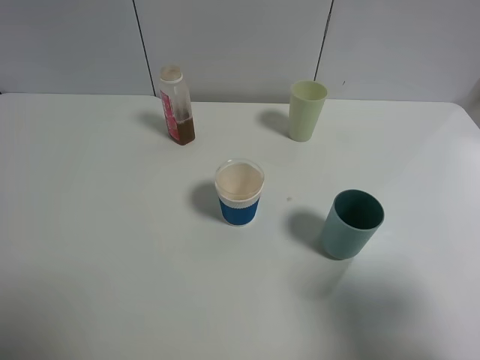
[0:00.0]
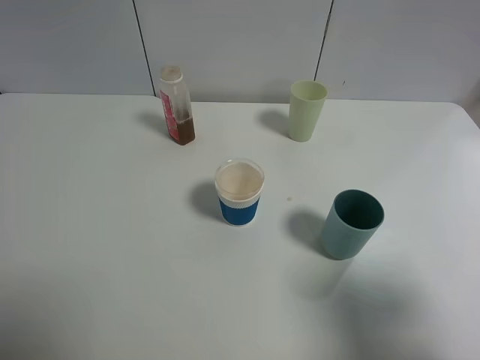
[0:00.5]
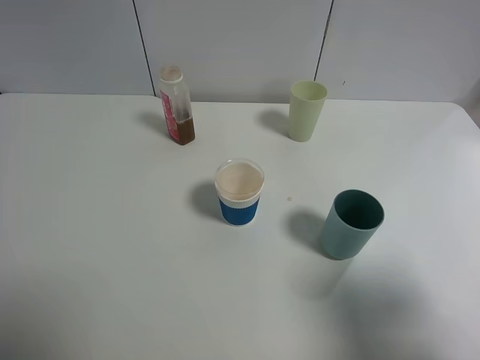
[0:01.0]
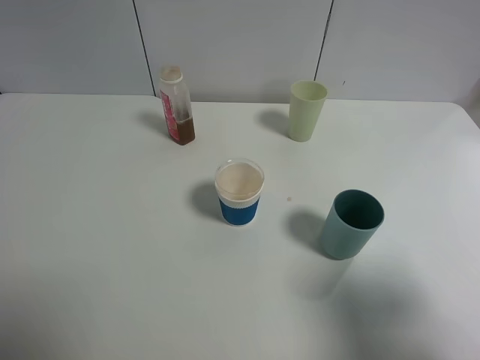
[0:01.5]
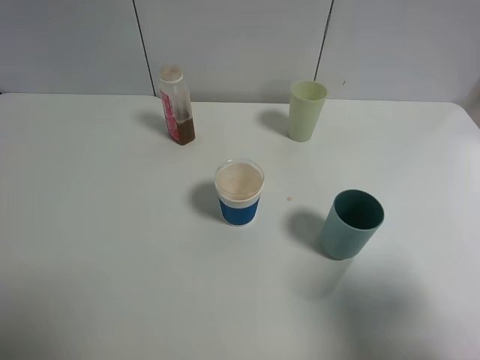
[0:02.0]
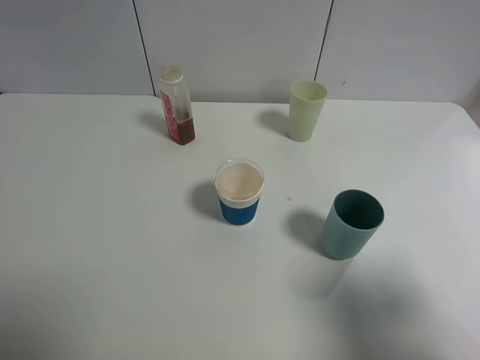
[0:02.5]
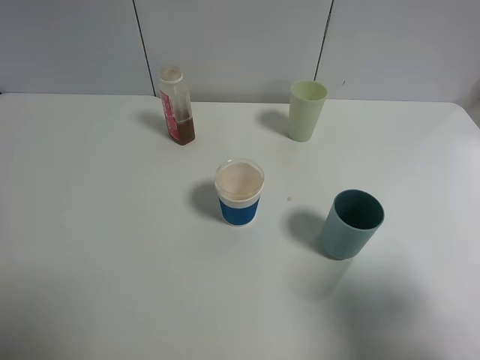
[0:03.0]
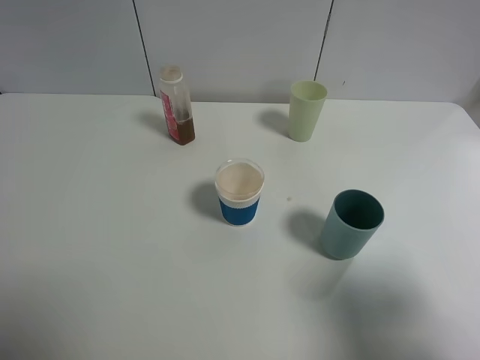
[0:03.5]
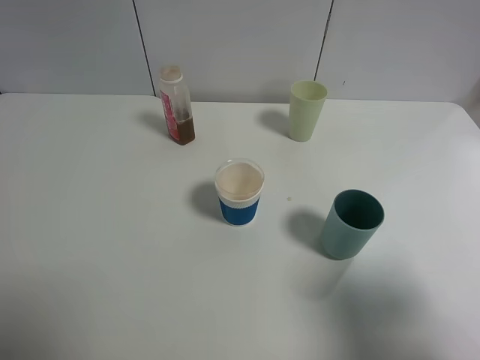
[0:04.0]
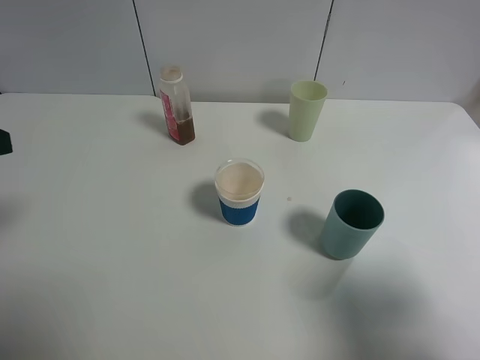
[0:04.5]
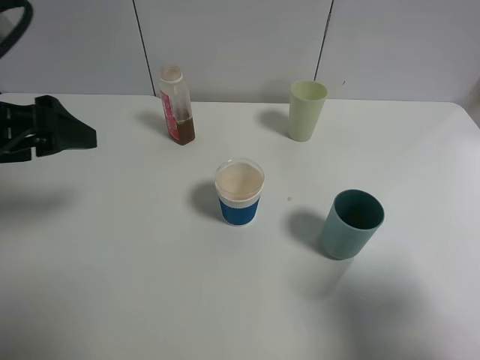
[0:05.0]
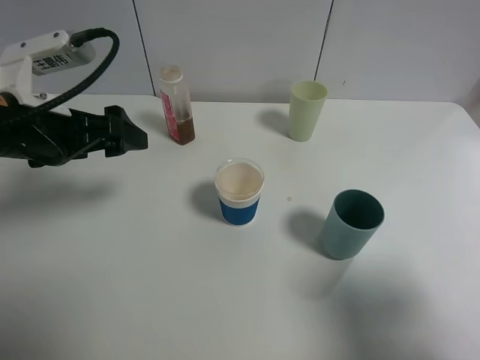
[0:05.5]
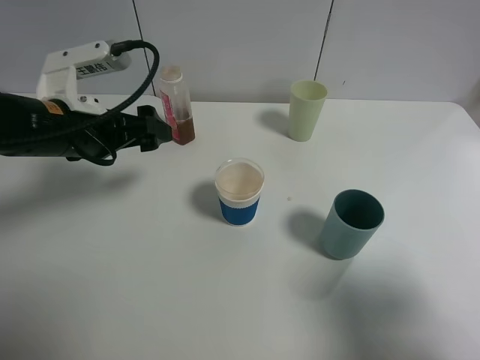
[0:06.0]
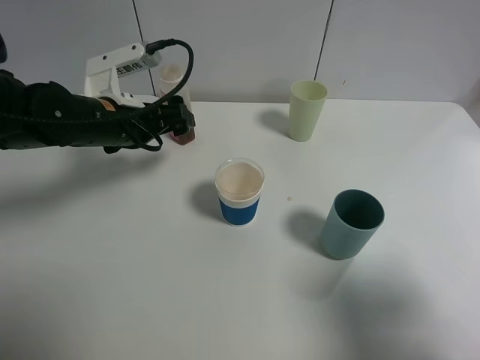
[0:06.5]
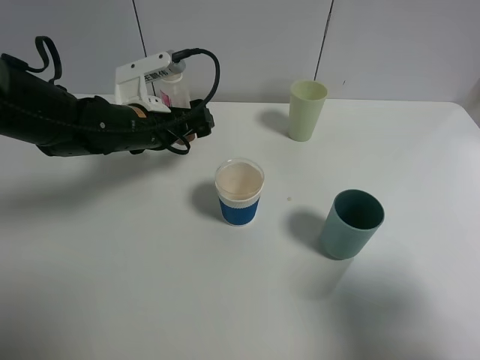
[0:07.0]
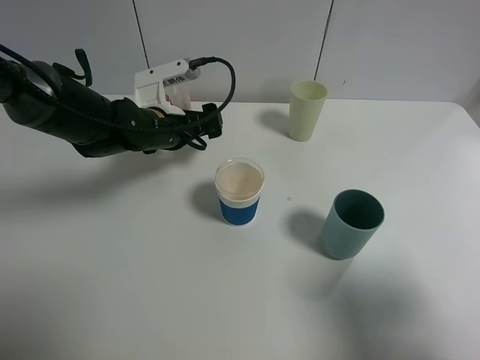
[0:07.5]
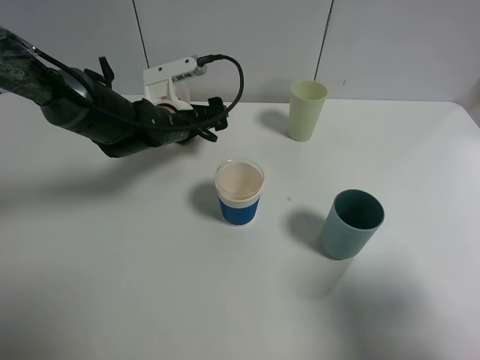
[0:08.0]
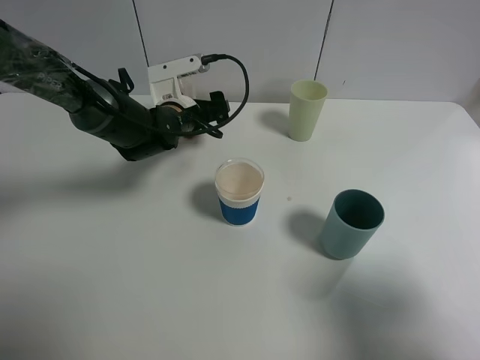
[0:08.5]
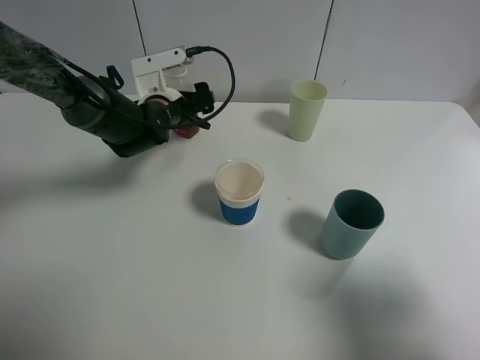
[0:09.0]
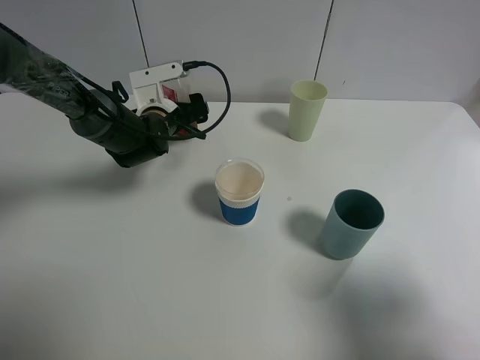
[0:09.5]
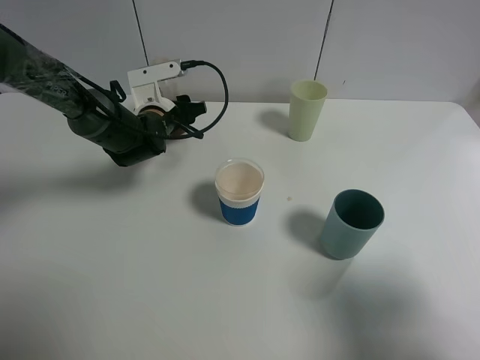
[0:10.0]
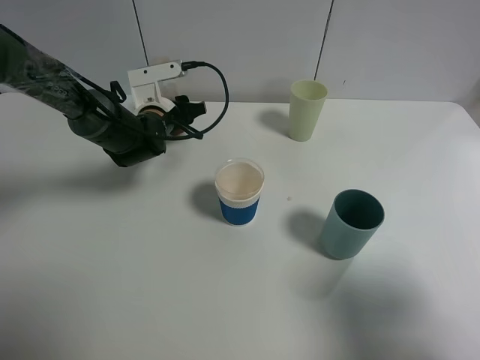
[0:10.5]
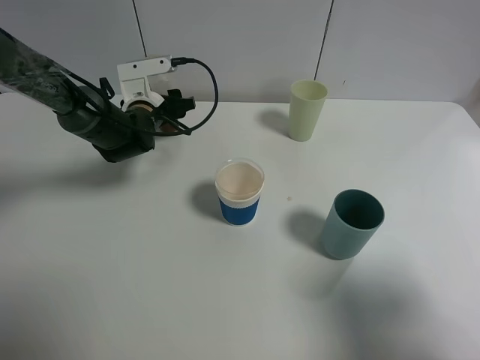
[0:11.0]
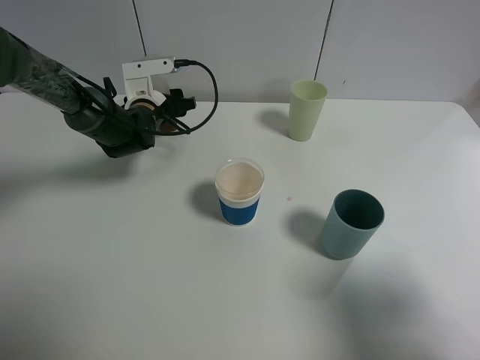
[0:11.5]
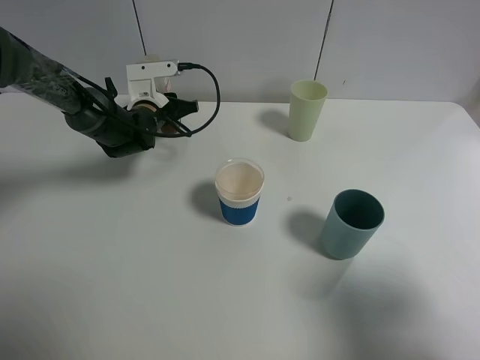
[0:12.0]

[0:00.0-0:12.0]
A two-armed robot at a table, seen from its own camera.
Task of the whole recording: use a gripper to hold the bottle of the drink and pour it into a random cup.
Step, 0:00.0 to 0:11.5: Grasp the cranberry juice bottle with the left gripper.
0:00.0 to 0:02.0: Neither gripper changes place.
0:04.0 to 0:06.0: The left gripper shifts roughly 25 cm forward, to the right and downward.
0:06.0 to 0:08.0: The left gripper shifts approximately 15 cm forward, downward and to the right.
0:08.0 to 0:10.0: The left gripper ends up some 5 cm from where it was, and closes up.
0:10.0 to 0:12.0: The left gripper closes.

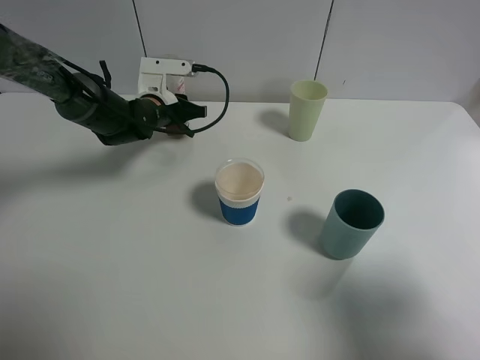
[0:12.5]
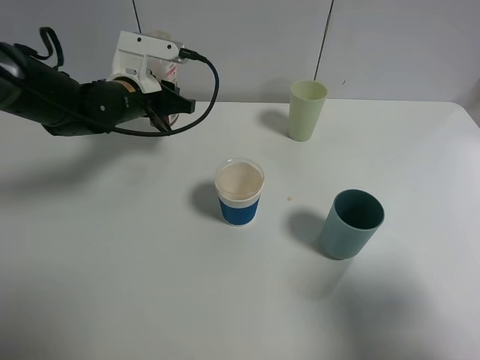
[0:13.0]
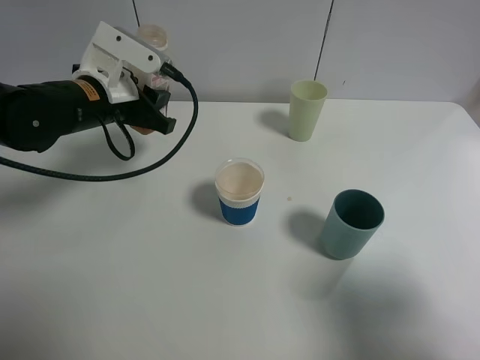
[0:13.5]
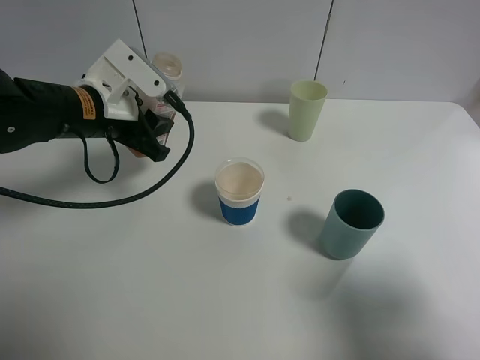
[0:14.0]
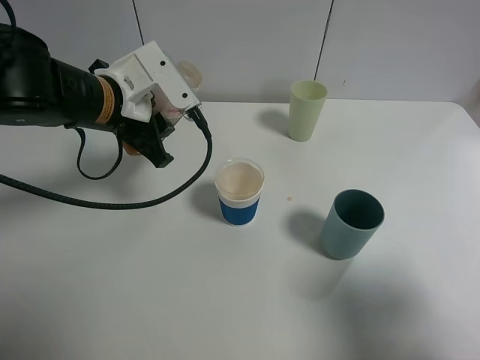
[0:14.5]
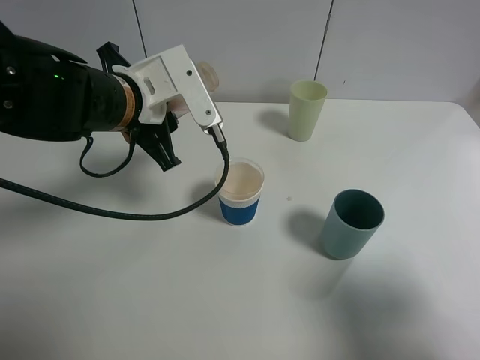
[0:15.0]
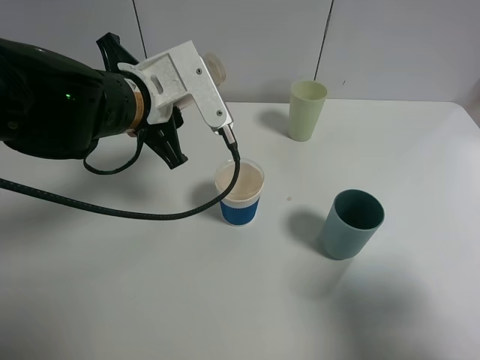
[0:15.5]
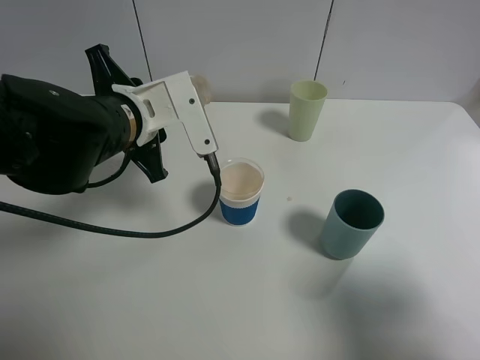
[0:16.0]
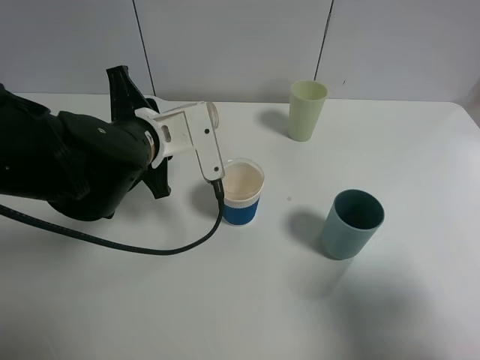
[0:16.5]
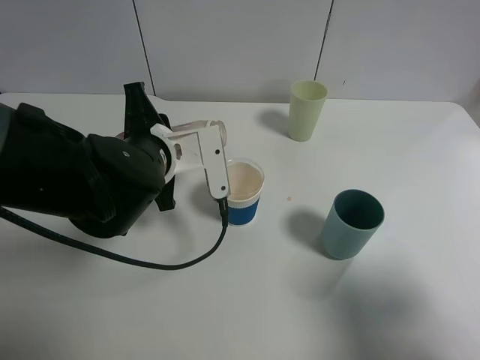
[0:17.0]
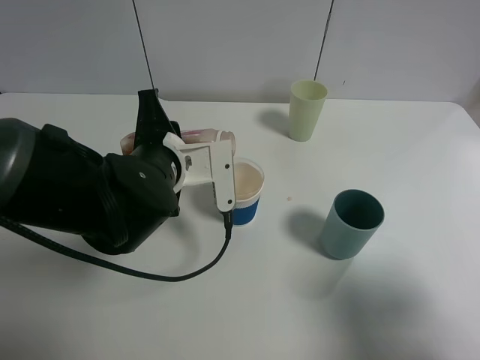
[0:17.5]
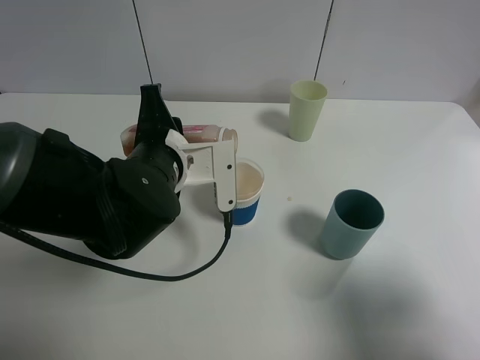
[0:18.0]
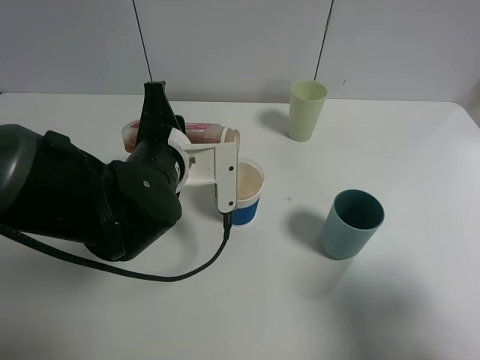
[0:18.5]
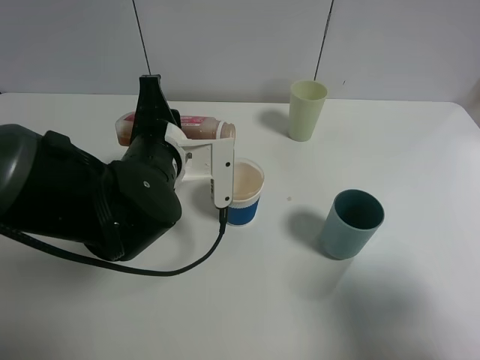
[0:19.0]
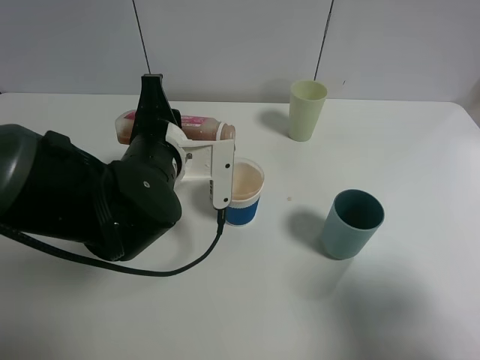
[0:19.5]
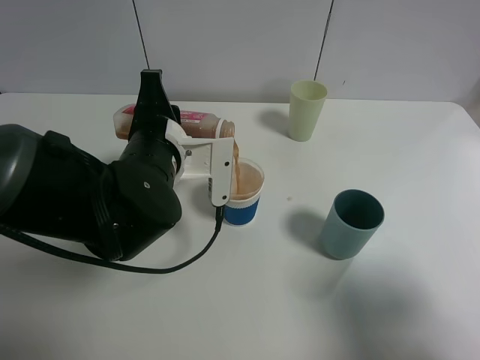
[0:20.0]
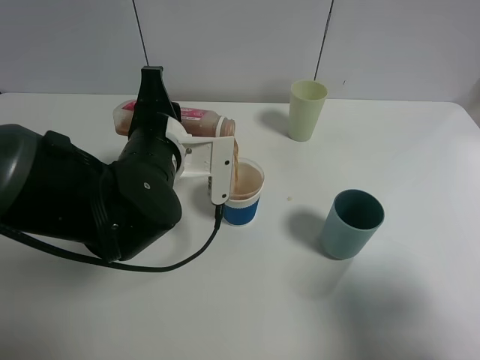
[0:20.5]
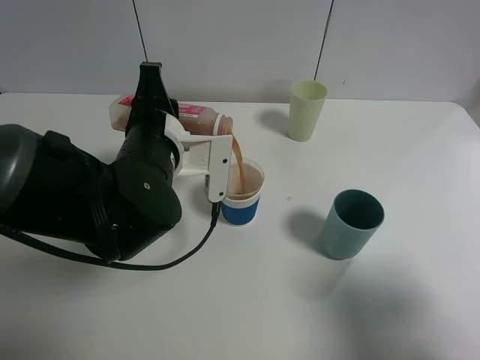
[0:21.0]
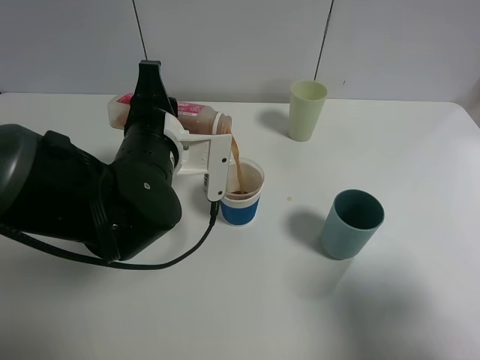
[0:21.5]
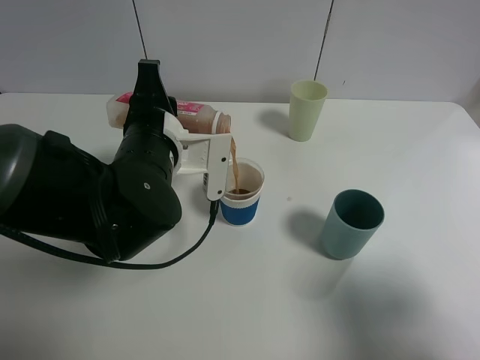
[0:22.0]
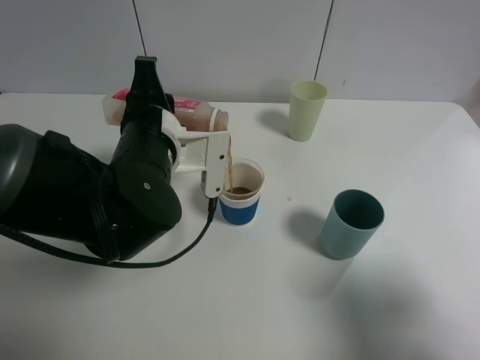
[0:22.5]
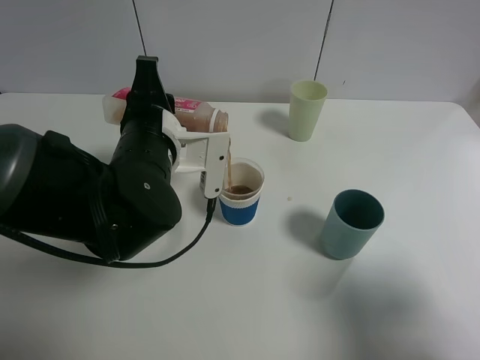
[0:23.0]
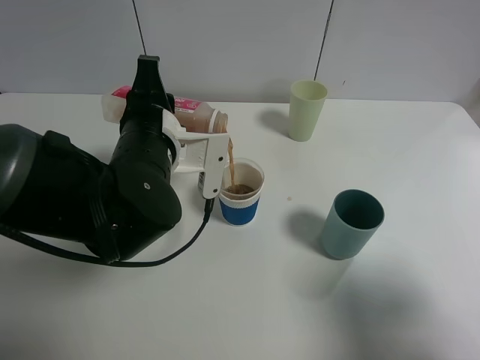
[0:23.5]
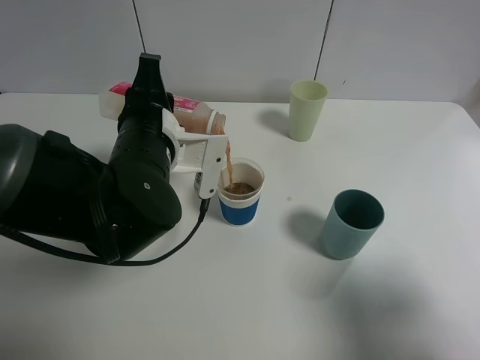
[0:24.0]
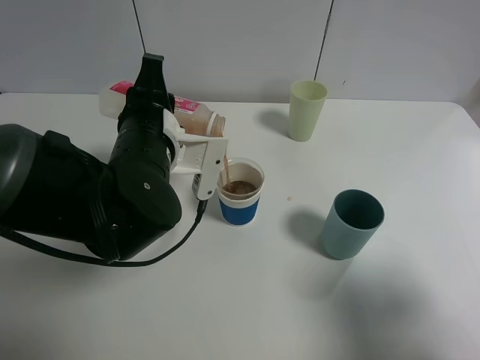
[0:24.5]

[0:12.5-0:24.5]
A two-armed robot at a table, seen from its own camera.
Task of the whole recording: use a gripper to hold the bottle of the drink and pour it into a random cup.
0:12.5 to 0:14.5: The left gripper goes some 20 cm backward and upward.
0:14.5 to 0:16.5: The left gripper changes place by roughly 5 cm.
0:16.5 to 0:18.5: The grippers make only small movements.
0:18.5 to 0:20.5: The grippers make only small movements.
0:20.5 to 0:22.5: The two grippers keep their place.
0:22.5 to 0:24.5: The grippers make only small movements.

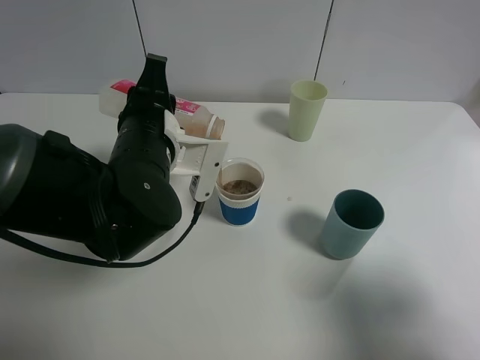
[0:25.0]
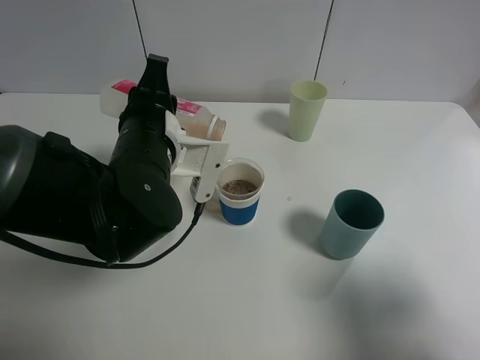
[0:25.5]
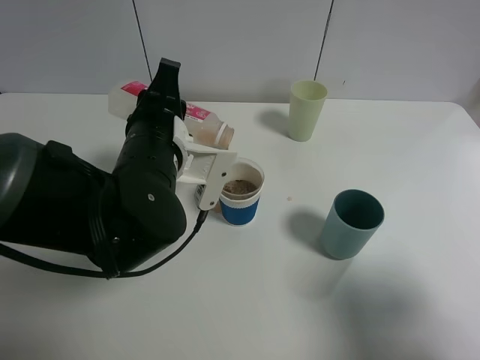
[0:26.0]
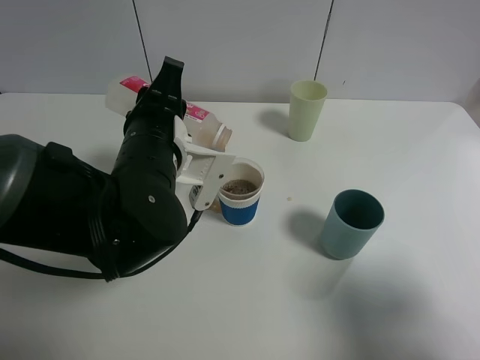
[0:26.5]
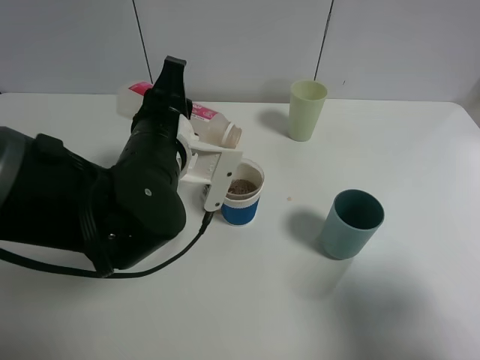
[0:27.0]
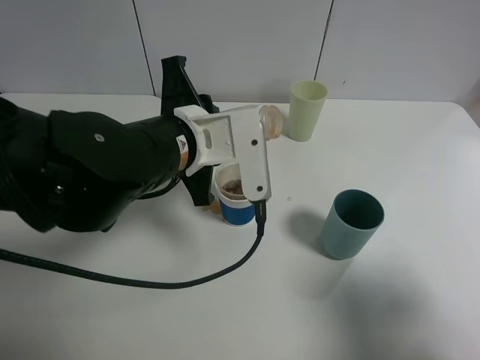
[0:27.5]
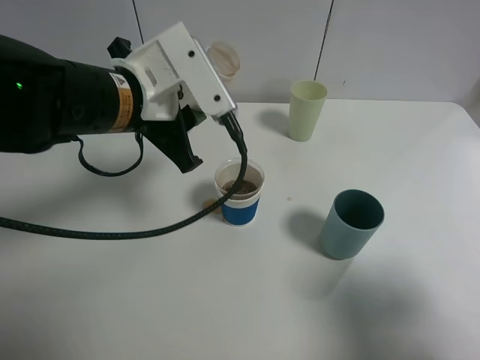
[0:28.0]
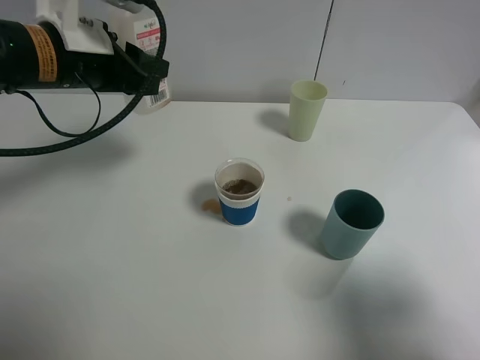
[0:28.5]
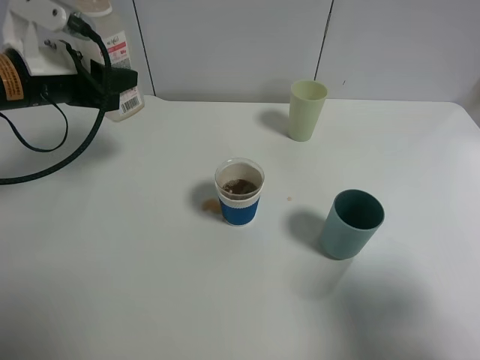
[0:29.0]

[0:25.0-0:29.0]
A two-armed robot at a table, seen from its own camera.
Task of the whole recording: use a gripper to hold the bottle of the drink and pour it into a random cup.
Step, 0:25.0 to 0:27.0: Pour the cranberry juice into the paper cup with the left gripper.
0:25.0 to 0:27.0: There are only small adjustments of the grippers.
0:27.0 to 0:29.0: The left gripper moves to the left and forward, approximately 20 cm.
